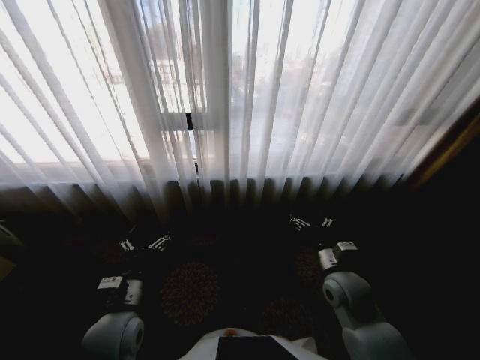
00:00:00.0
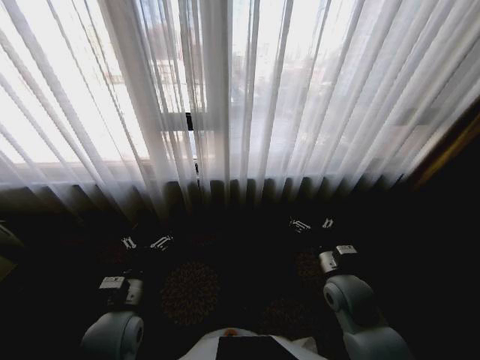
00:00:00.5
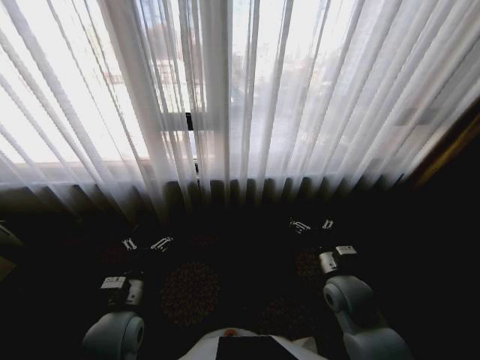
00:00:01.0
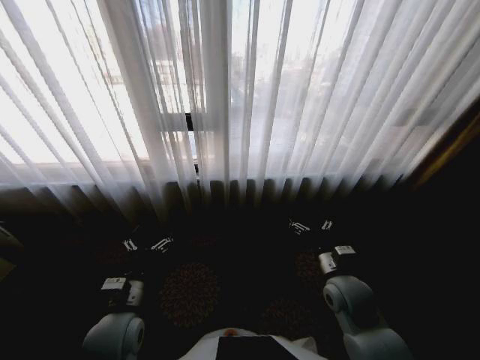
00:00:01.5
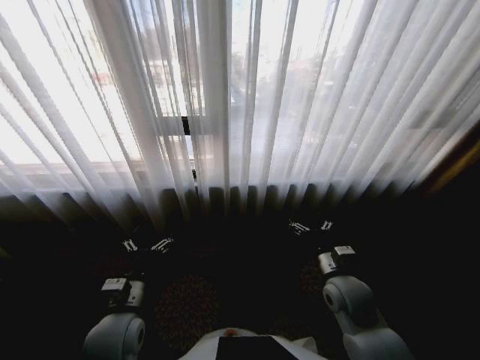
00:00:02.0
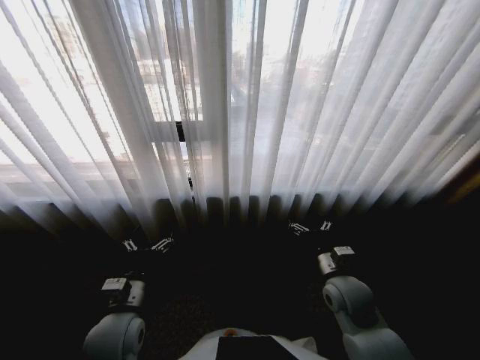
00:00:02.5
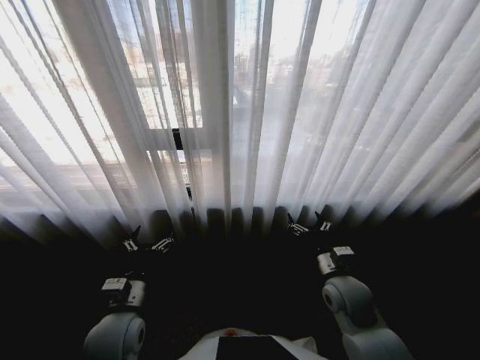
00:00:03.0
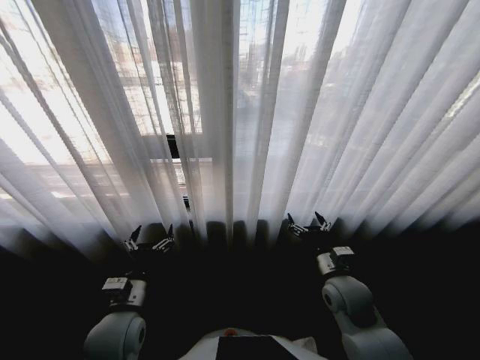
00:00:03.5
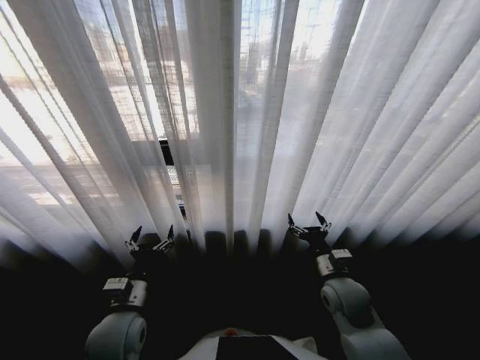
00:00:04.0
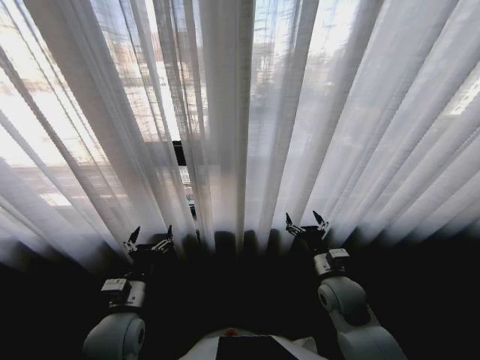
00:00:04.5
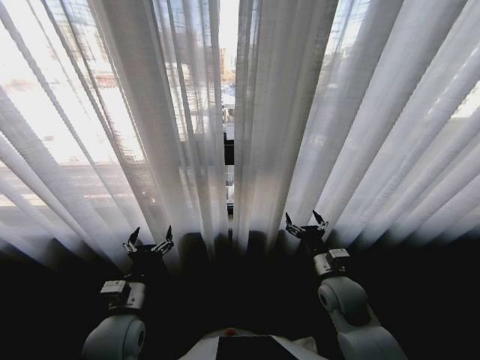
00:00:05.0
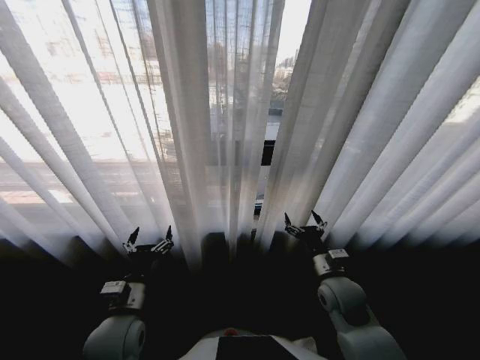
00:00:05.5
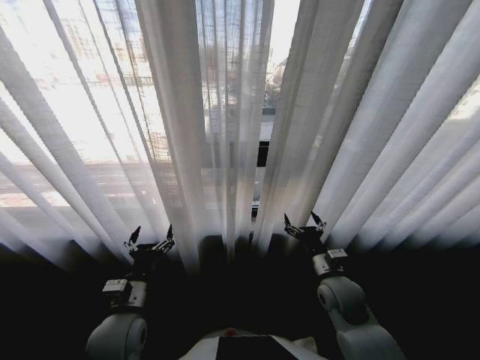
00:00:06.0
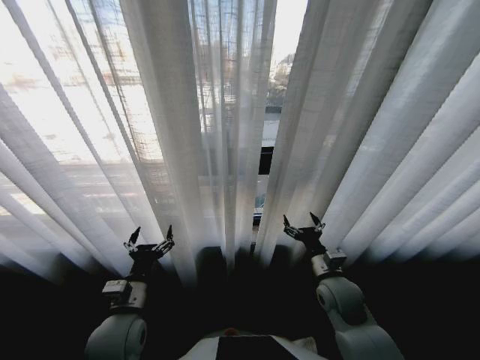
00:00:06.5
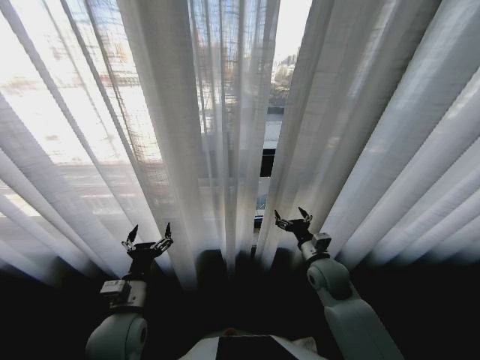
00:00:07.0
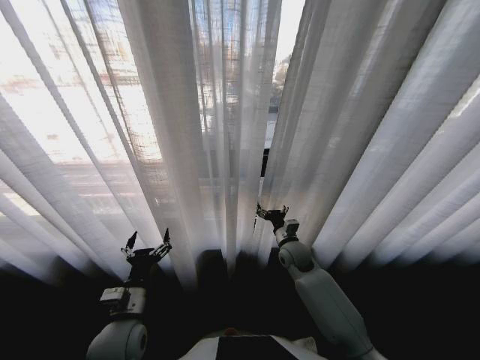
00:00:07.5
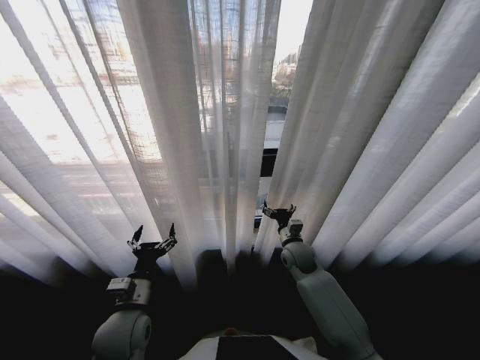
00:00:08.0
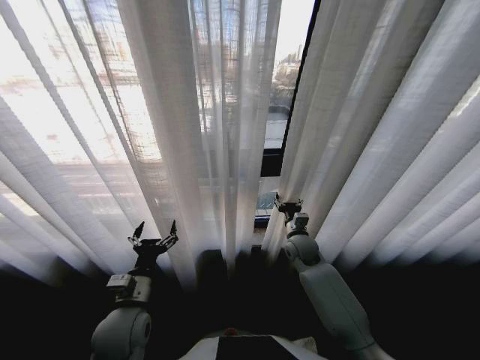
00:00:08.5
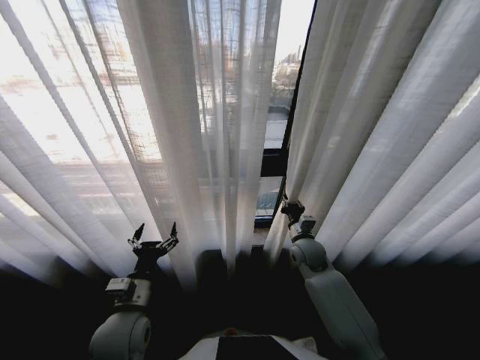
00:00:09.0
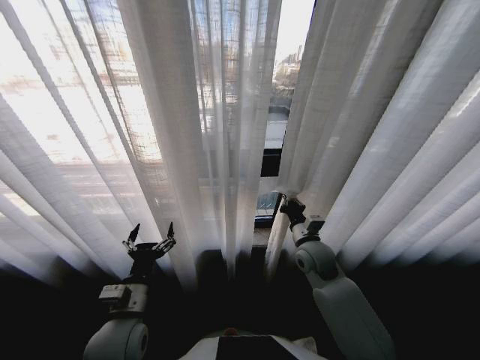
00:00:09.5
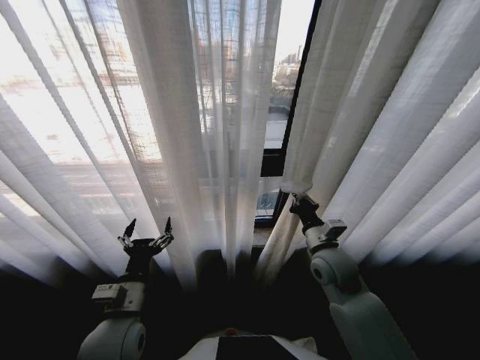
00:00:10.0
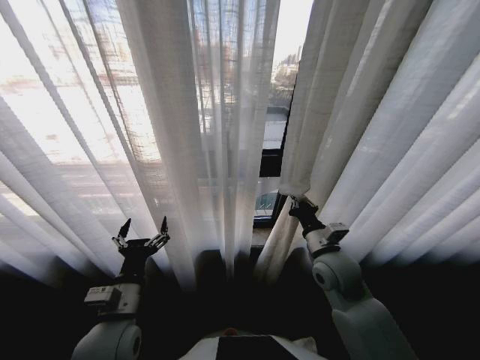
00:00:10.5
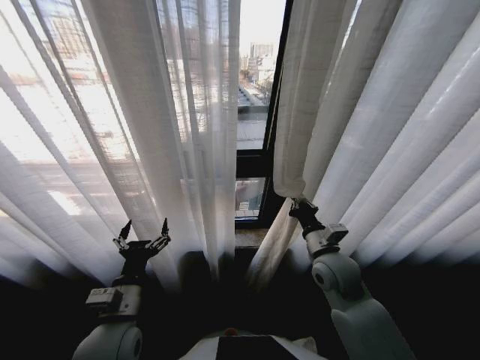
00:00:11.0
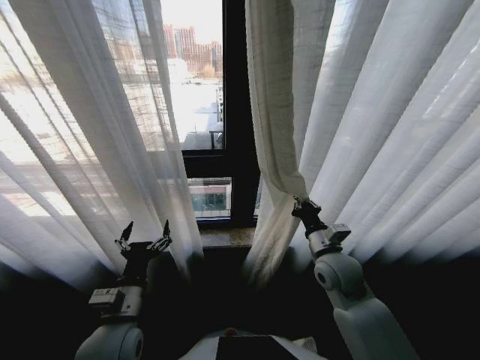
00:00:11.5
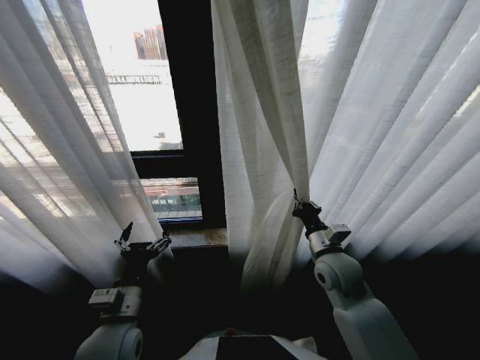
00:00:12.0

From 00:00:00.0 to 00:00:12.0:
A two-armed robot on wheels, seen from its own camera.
Task of the whole recording: Open the curtains by pulling them apart, changing their state from closed to fully open.
From 00:00:06.0 to 00:00:08.0: The right gripper is displaced forward and to the left by about 15 cm.
From 00:00:08.0 to 00:00:10.0: The right gripper goes approximately 15 cm upward and backward, and closes.

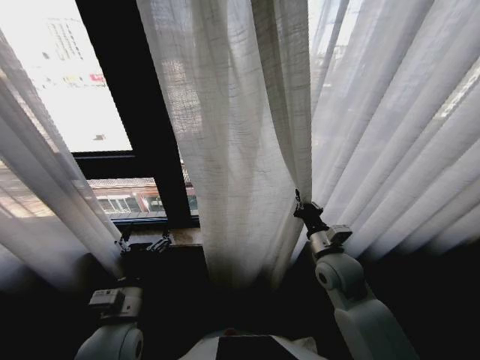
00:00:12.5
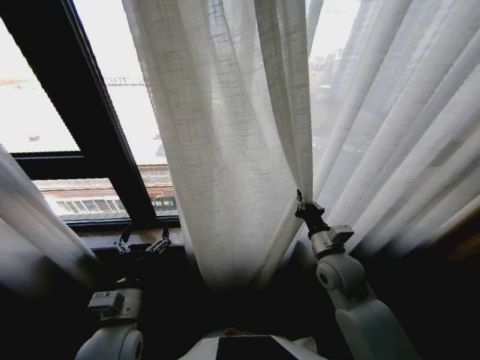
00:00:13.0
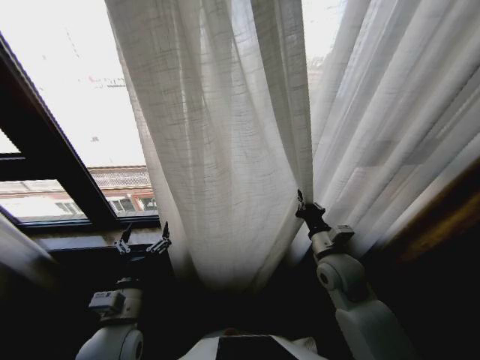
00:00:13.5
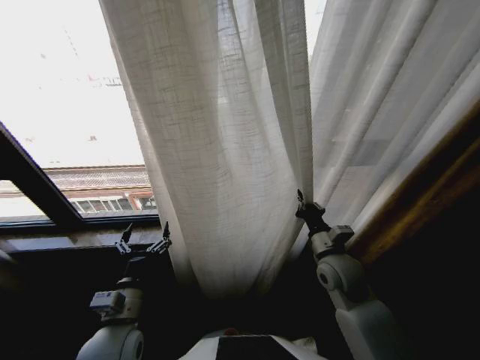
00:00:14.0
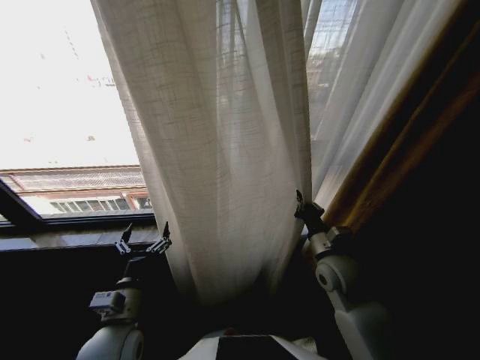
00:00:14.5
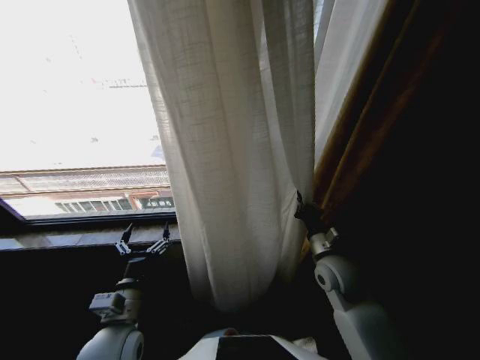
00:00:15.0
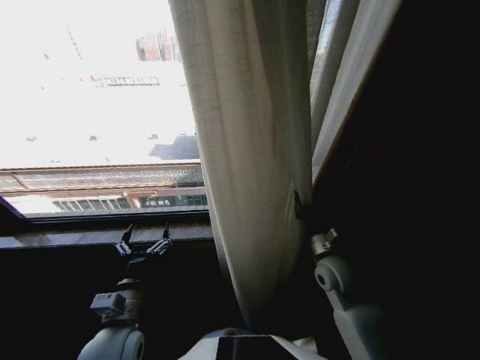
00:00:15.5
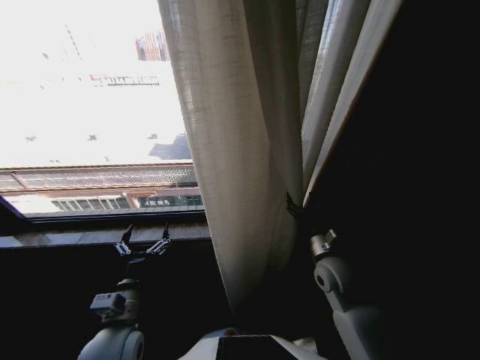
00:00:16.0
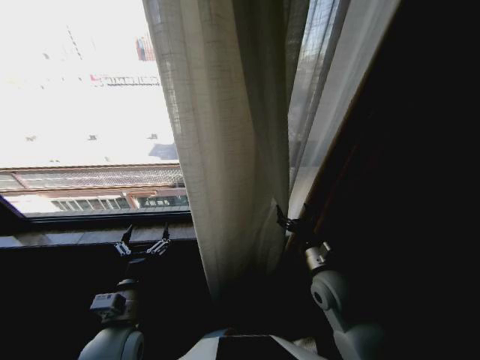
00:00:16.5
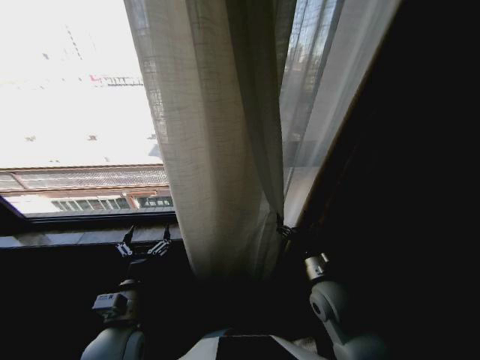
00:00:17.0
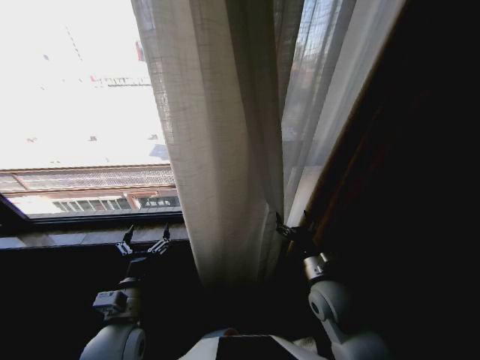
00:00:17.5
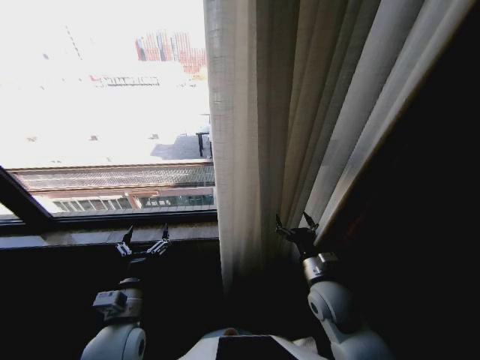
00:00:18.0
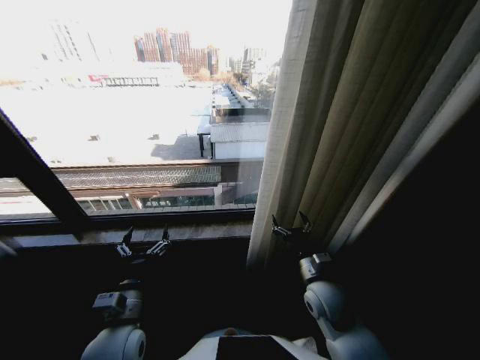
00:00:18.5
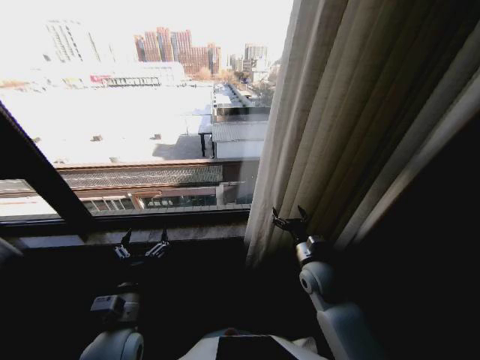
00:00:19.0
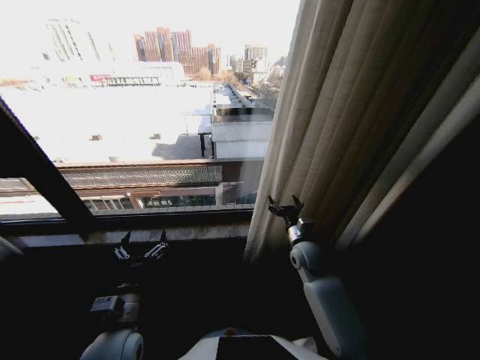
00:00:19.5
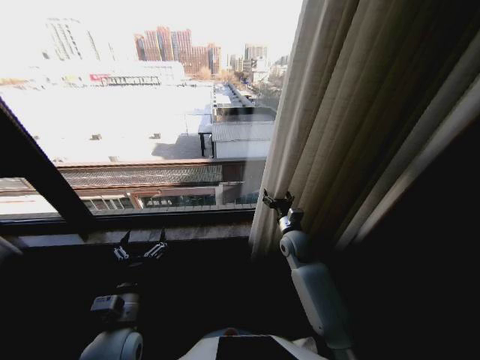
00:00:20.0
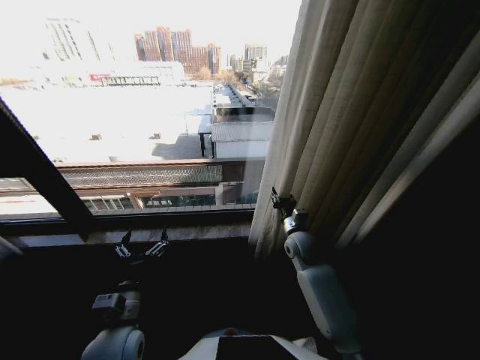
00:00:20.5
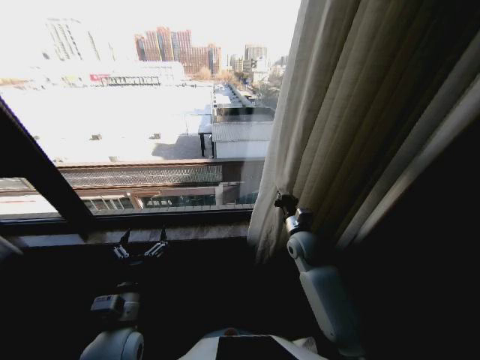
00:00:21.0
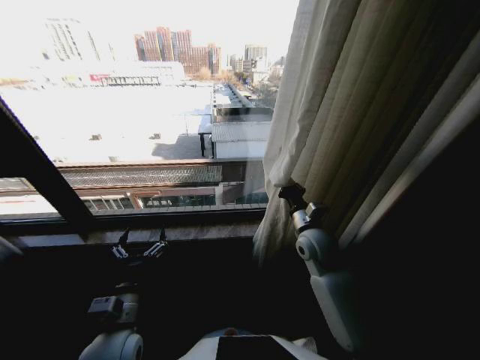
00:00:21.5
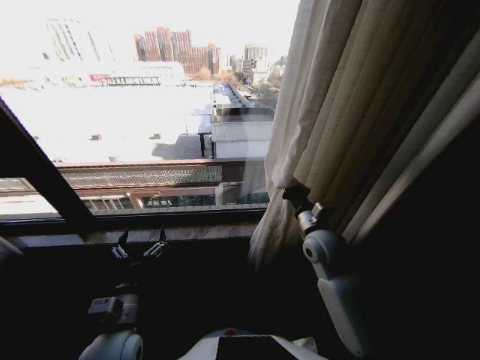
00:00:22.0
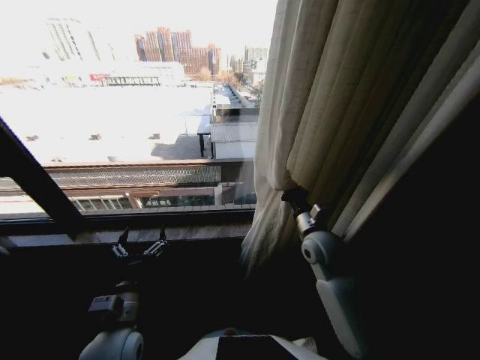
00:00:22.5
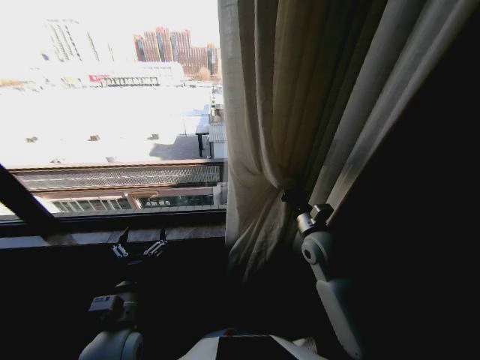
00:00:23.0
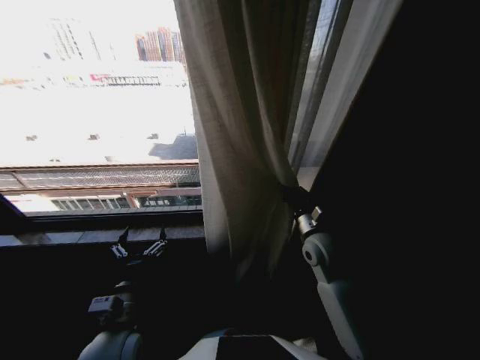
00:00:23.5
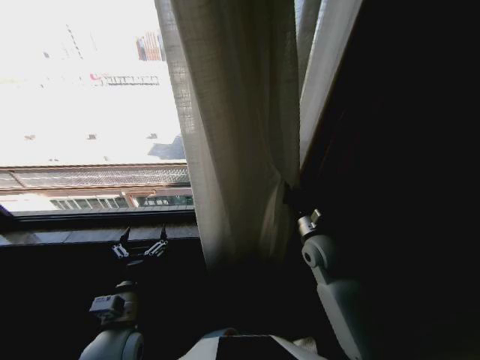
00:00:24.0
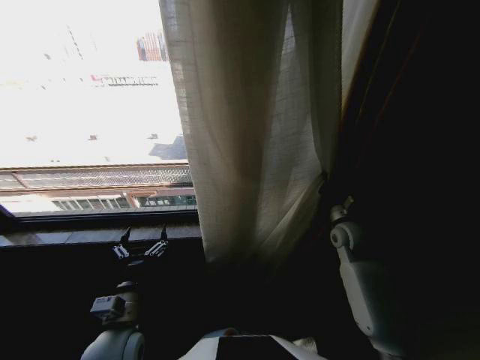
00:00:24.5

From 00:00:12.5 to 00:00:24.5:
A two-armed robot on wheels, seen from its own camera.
Task of the whole recording: Open the curtains by pulling them apart, changing their state from closed to fully open.
From 00:00:14.5 to 00:00:16.5: The right gripper opens its fingers.
From 00:00:18.5 to 00:00:20.5: The right gripper heads forward, covering about 15 cm, and closes up.
From 00:00:20.5 to 00:00:22.5: The right gripper moves upward, approximately 10 cm, and closes.
From 00:00:22.5 to 00:00:24.5: The right gripper shifts about 10 cm to the right.

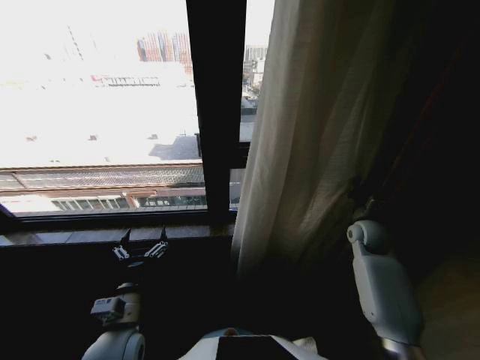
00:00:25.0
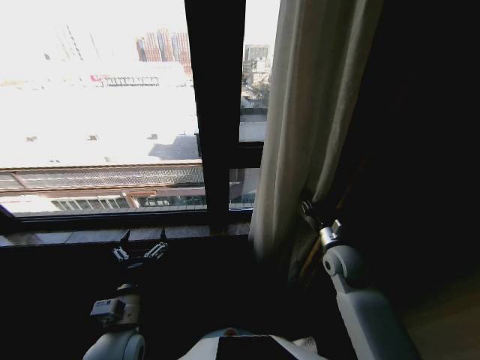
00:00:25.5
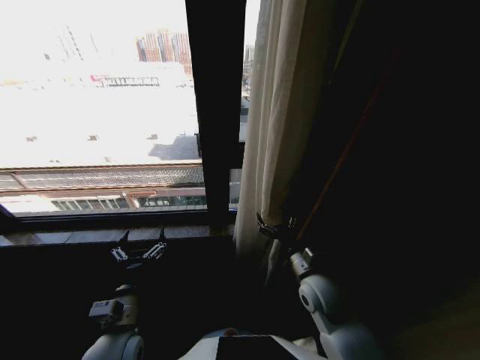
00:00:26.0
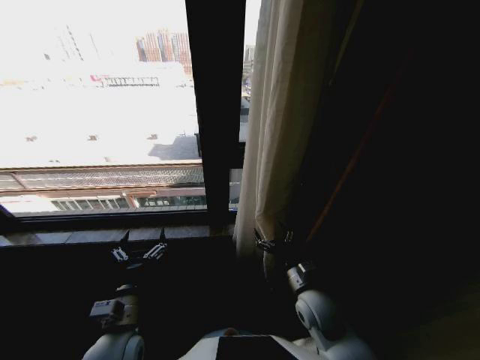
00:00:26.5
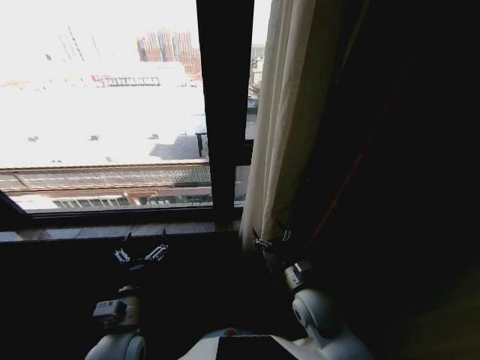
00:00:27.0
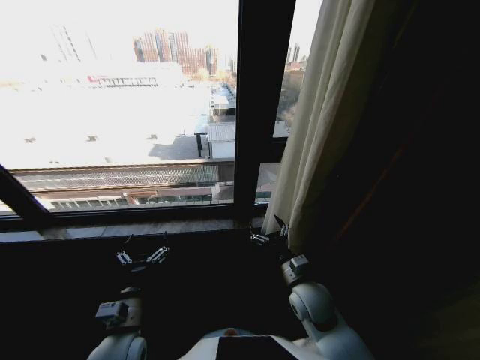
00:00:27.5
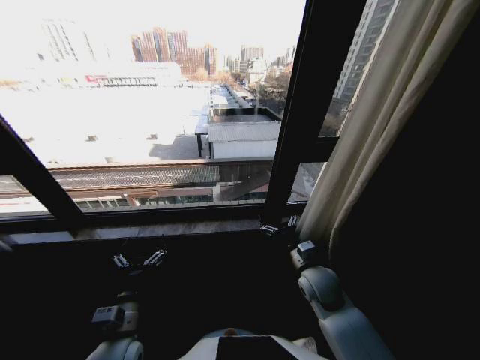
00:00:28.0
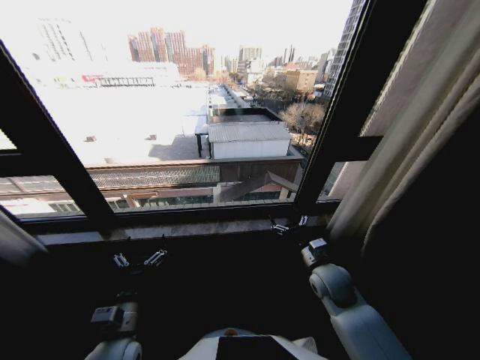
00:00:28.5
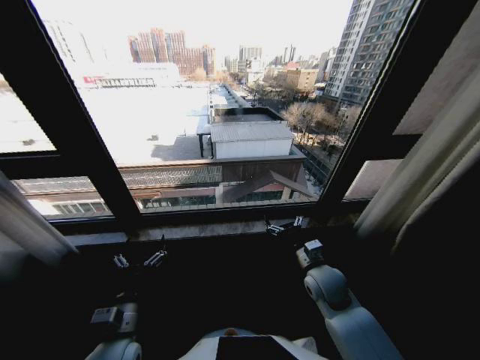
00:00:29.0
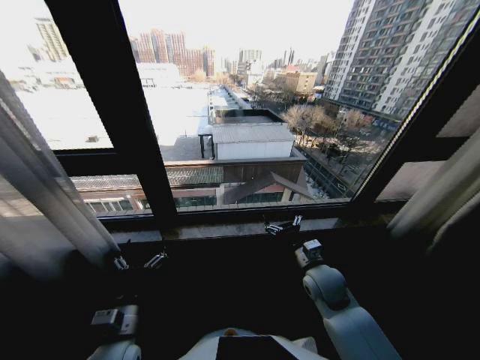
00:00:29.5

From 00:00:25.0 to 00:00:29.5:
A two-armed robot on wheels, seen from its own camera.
Task of the whole recording: Open the curtains by pulling them apart, changing their state from closed to fully open.
From 00:00:25.0 to 00:00:27.0: The right gripper heads to the left and backward, covering about 25 cm, and opens up.
From 00:00:27.0 to 00:00:29.5: The right gripper goes roughly 5 cm forward.
